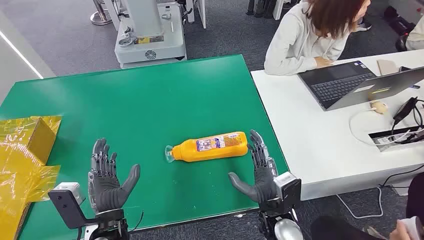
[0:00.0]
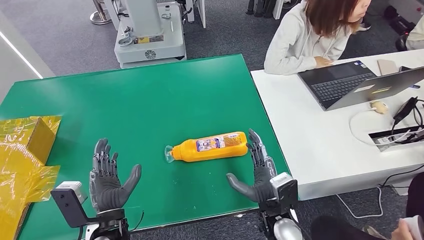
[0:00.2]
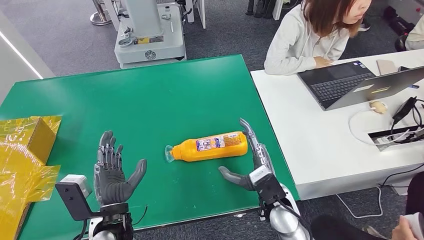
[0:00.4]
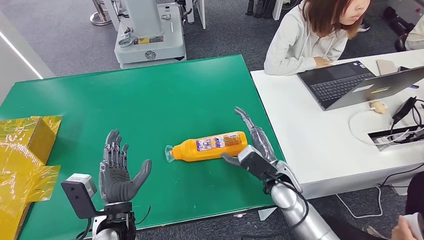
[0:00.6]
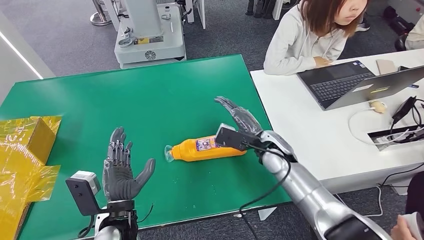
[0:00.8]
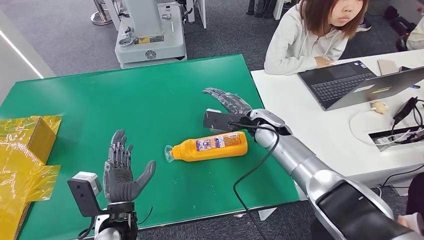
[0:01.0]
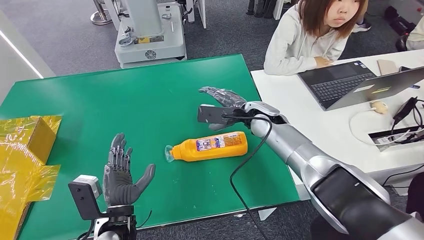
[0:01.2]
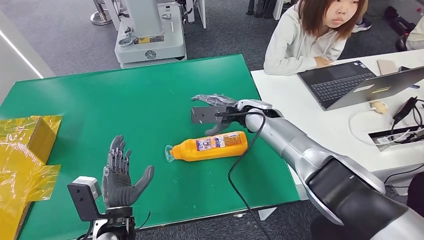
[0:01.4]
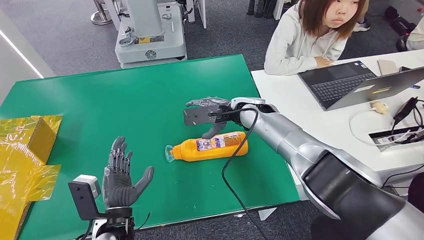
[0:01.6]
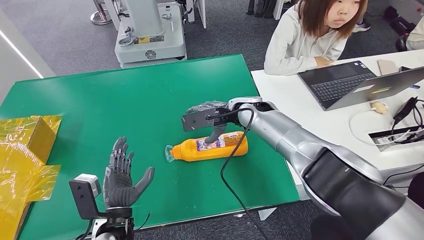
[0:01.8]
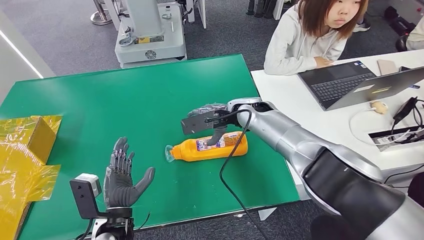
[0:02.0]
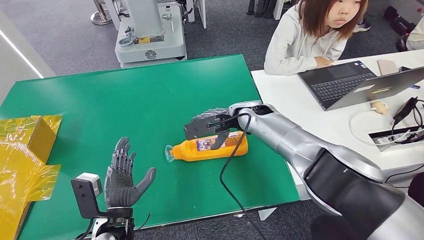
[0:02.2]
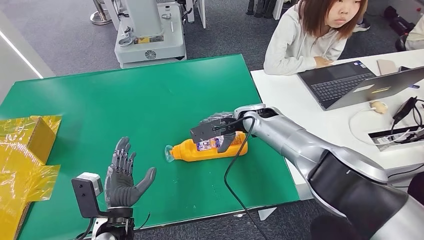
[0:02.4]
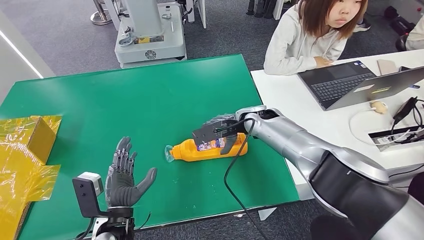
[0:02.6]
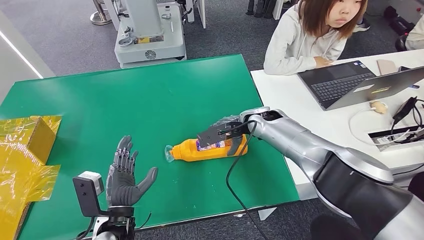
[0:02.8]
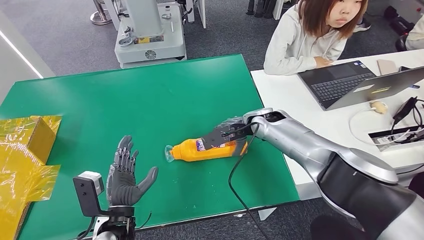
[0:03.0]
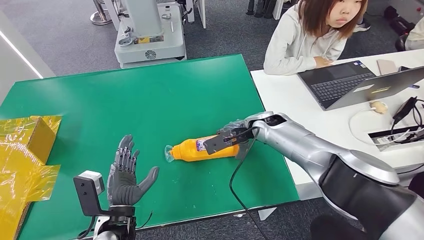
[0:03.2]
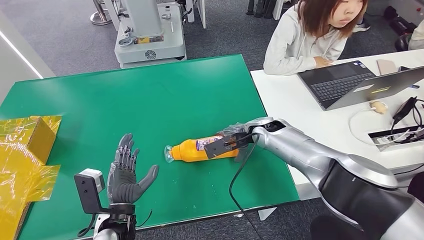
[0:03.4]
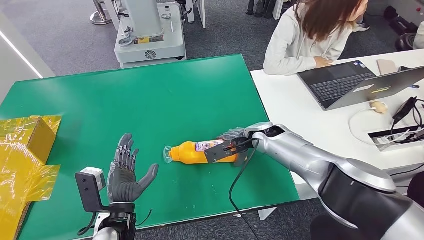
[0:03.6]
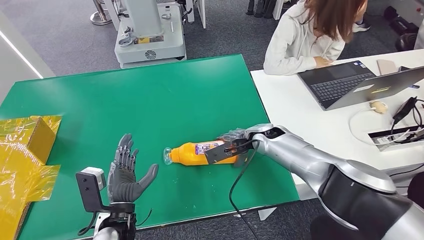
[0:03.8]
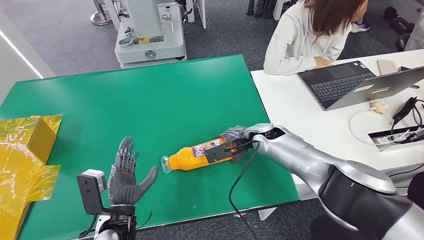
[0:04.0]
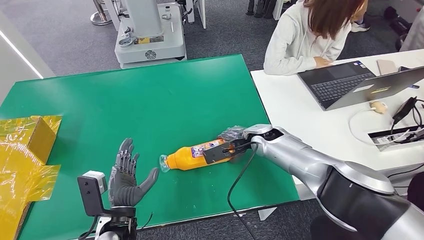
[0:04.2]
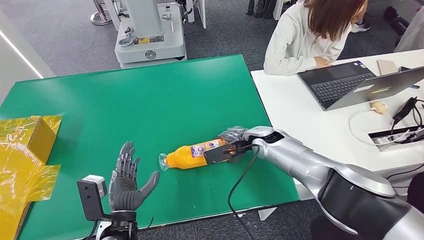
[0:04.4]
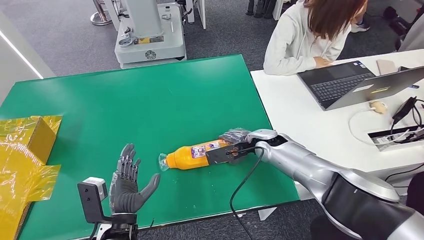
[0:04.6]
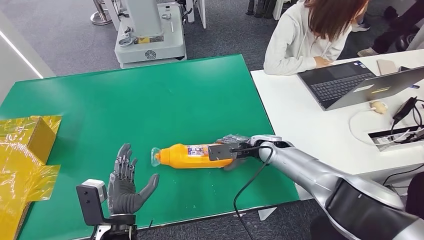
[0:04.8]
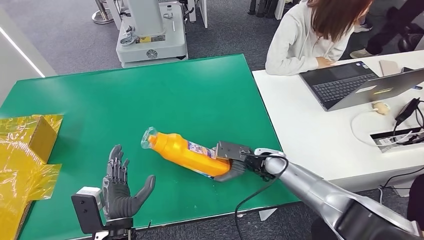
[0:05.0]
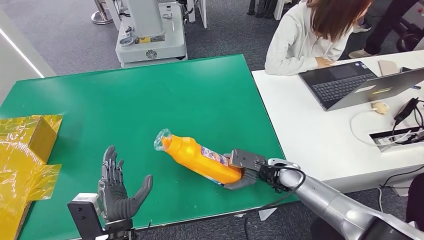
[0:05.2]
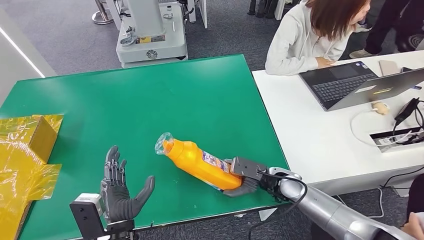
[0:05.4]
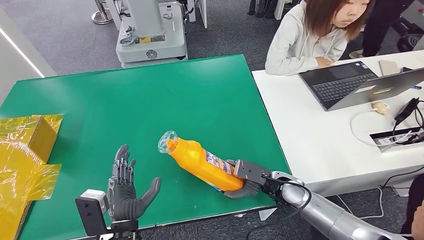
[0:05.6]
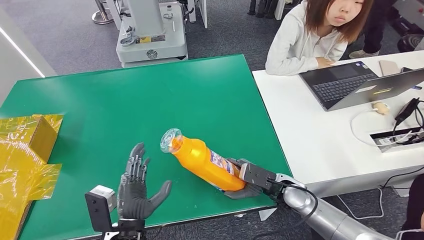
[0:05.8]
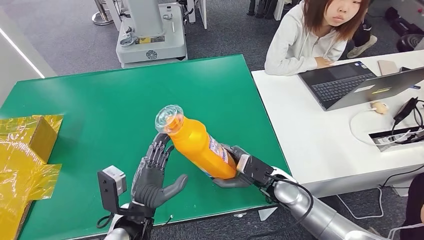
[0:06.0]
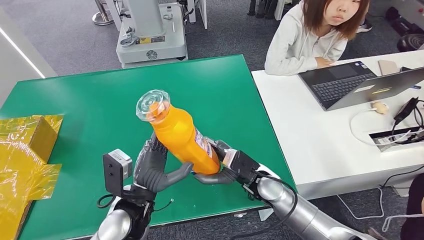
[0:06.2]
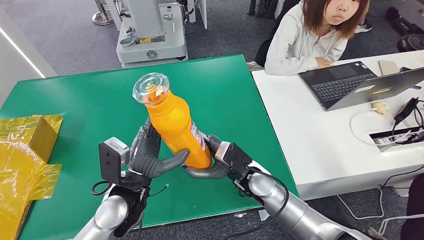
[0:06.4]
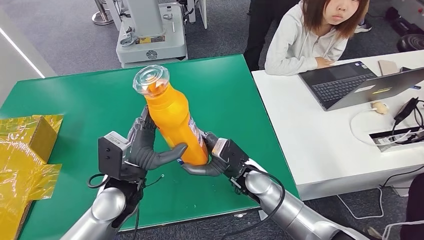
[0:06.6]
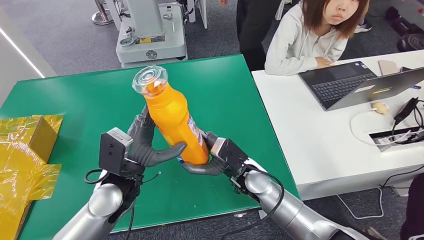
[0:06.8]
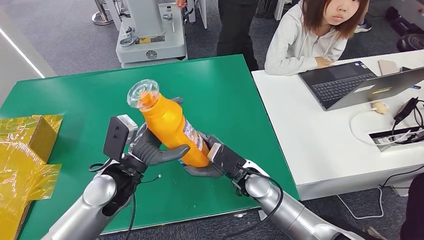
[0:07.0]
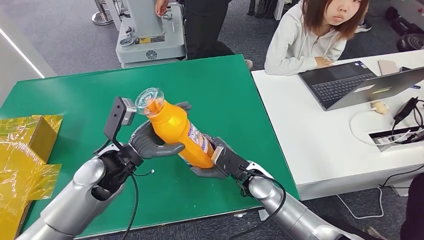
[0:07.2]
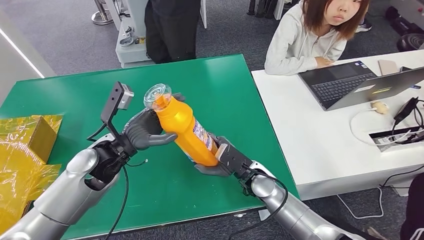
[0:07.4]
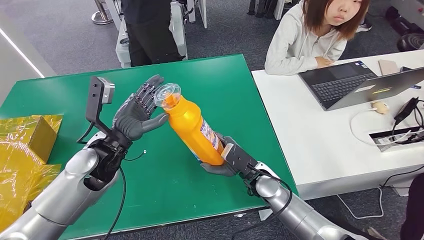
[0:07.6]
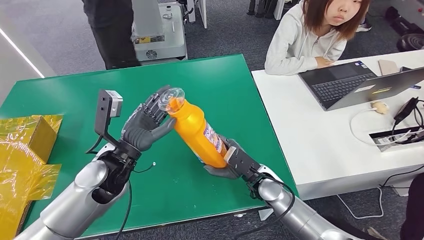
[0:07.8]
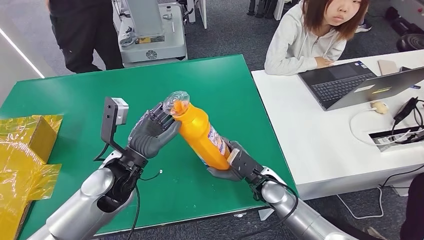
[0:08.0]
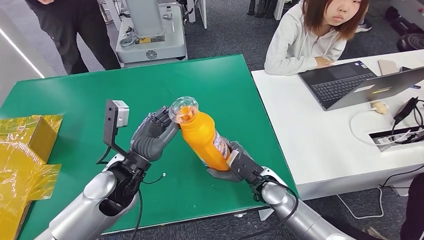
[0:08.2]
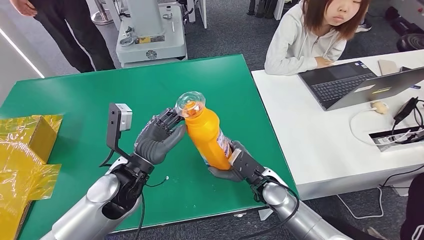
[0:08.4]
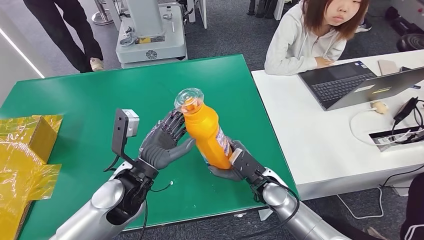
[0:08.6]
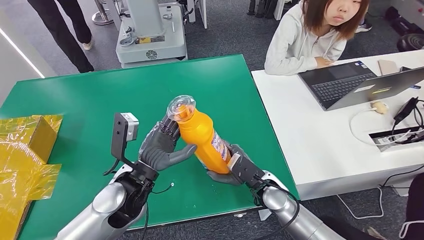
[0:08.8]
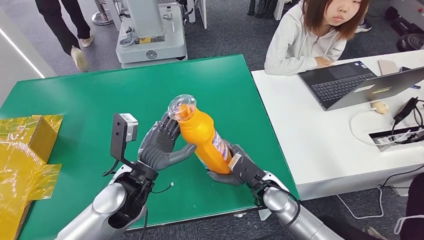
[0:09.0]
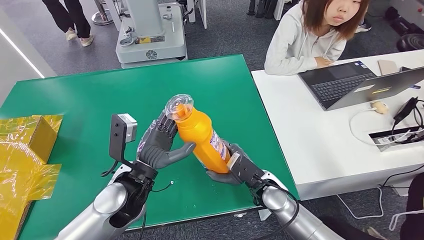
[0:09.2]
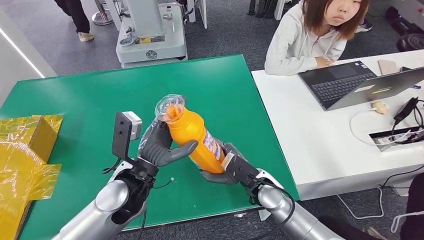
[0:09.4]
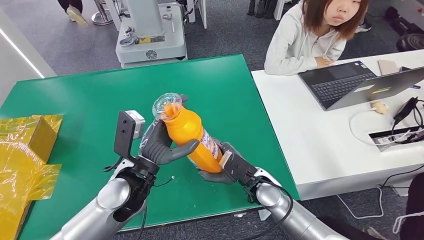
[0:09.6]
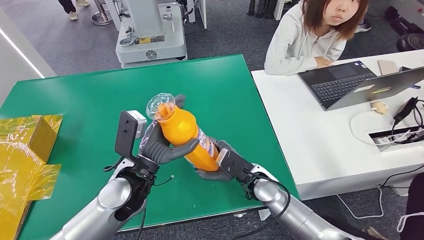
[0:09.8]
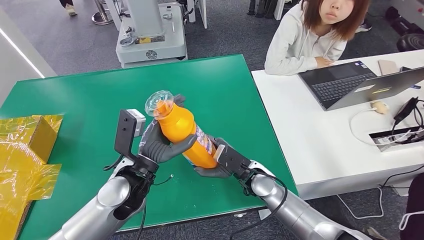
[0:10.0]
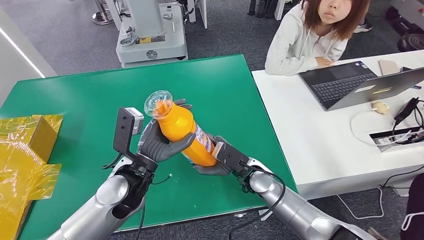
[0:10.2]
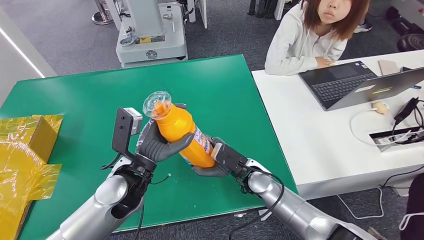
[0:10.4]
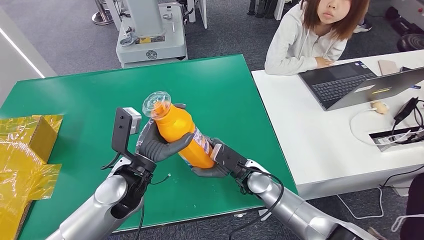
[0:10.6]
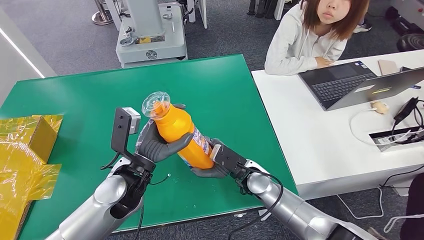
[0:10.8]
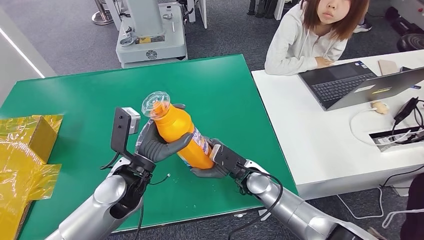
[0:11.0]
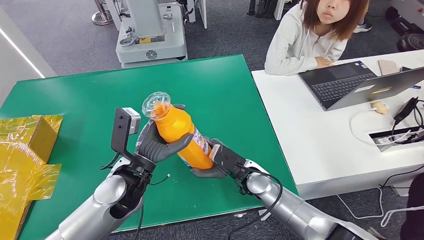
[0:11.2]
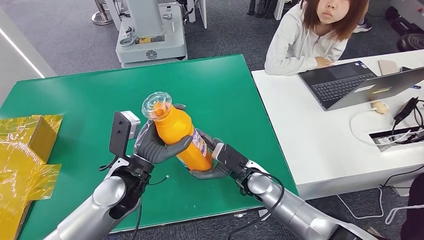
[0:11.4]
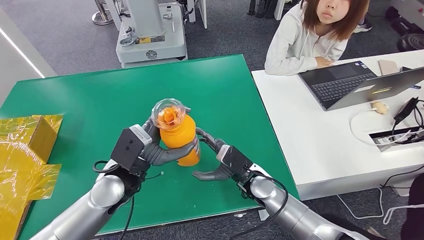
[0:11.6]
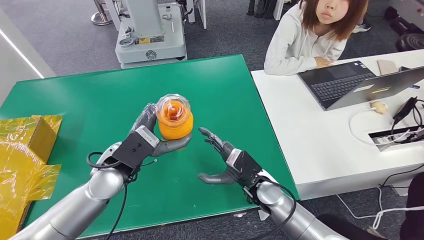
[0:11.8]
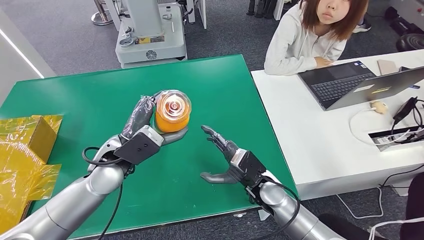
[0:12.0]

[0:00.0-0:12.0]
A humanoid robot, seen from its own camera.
Step, 0:00.0 to 0:06.2: Pick up the bottle from the table.
0:01.6 to 0:03.0: The right hand shifts by some 5 cm.
0:03.0 to 0:04.4: The right hand shifts approximately 5 cm downward.
0:09.0 to 0:10.4: The right hand changes place by approximately 5 cm.
0:10.4 to 0:12.0: The left hand moves some 5 cm.

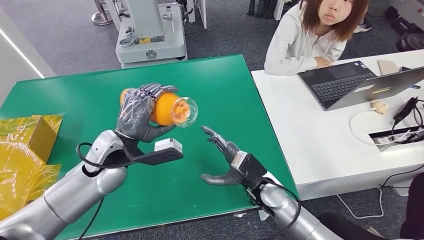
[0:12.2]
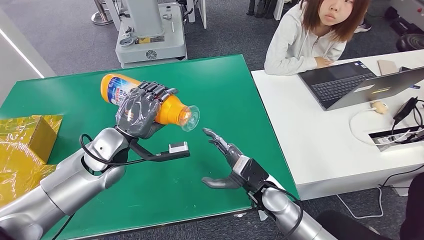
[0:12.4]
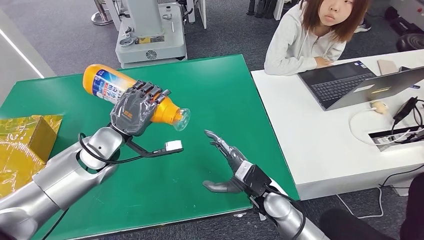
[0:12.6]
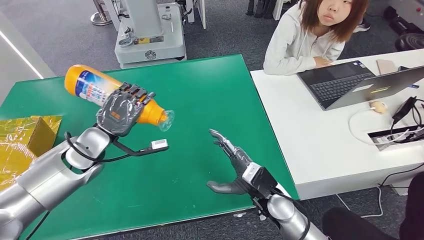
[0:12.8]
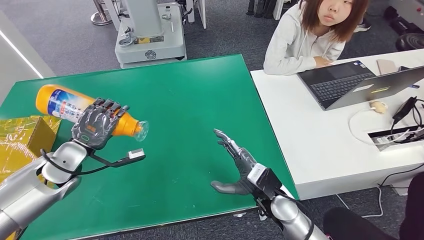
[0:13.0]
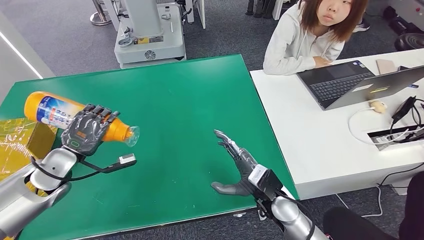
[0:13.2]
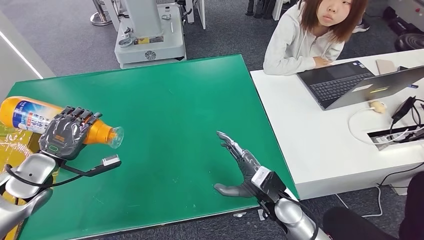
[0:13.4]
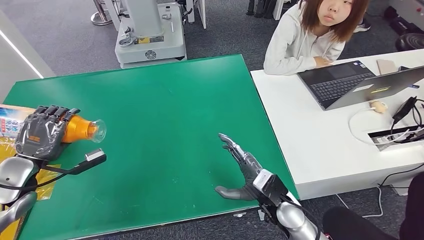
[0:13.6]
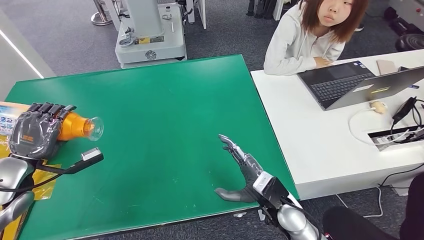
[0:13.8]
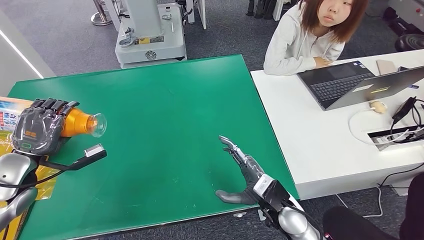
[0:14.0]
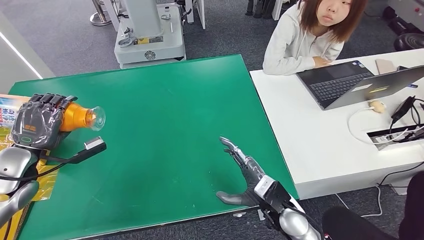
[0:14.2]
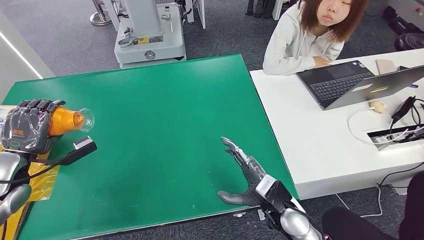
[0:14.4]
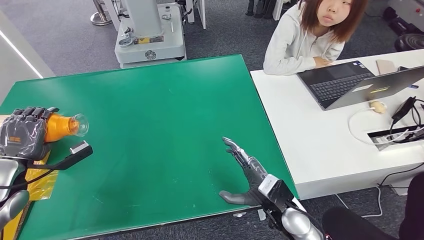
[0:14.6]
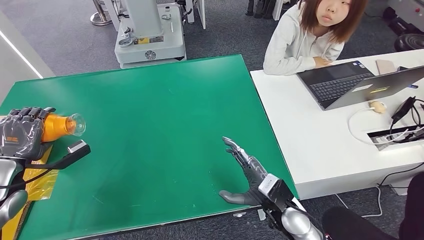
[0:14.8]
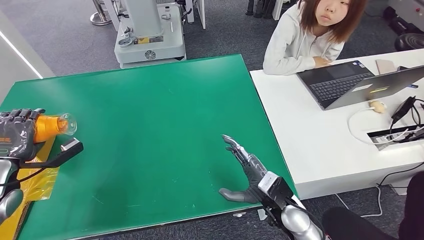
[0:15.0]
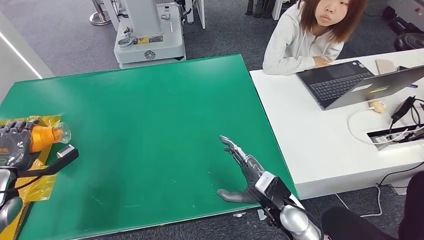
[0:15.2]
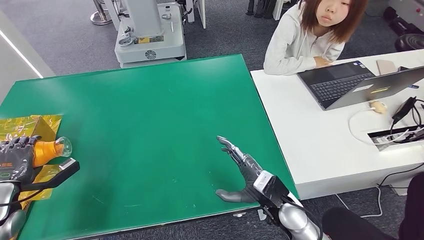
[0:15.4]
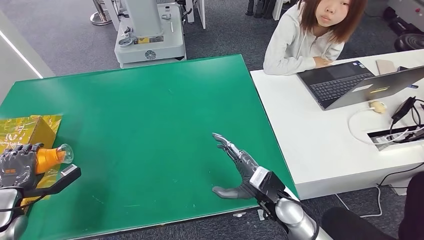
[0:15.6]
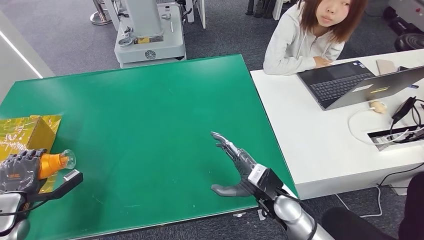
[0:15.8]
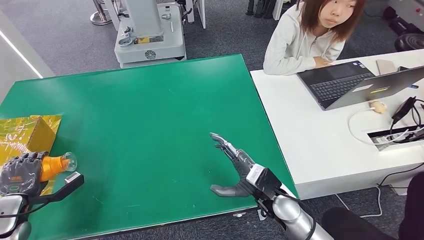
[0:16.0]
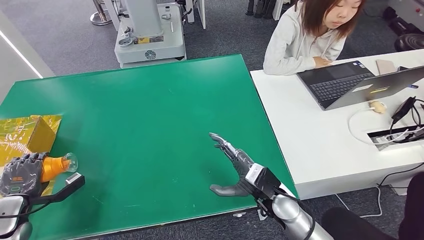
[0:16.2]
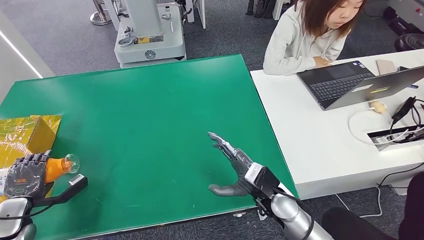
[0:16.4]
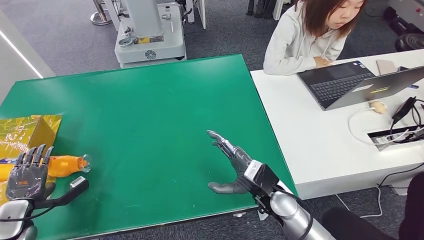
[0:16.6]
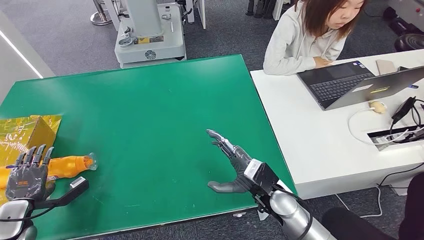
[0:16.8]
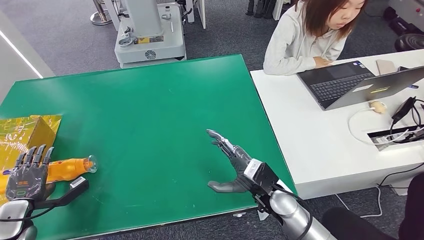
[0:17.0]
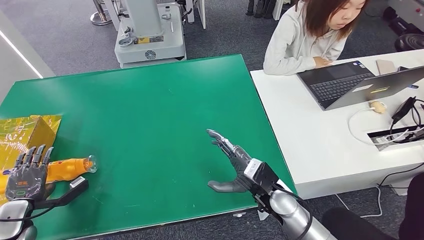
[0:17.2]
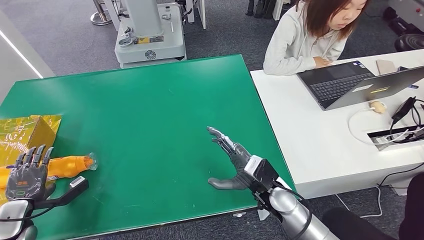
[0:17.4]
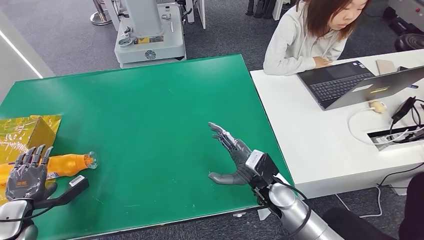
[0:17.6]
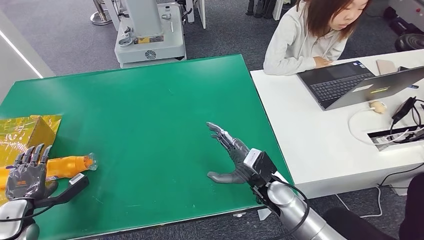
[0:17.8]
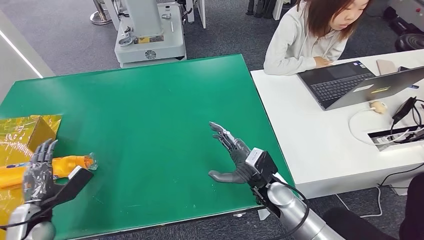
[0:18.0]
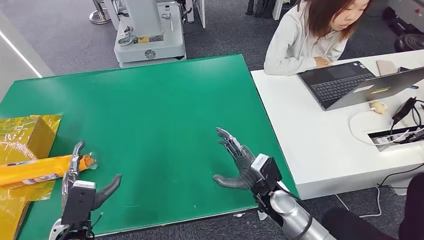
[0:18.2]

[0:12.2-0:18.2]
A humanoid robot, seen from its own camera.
Step, 0:12.2 to 0:18.0: Turn the bottle to the front side.
0:13.8 to 0:15.2: The left hand moves downward and to the left, roughly 10 cm.
0:15.2 to 0:16.6: The left hand heads downward and backward, covering about 15 cm.
0:16.6 to 0:18.2: The left hand goes approximately 15 cm to the right.
